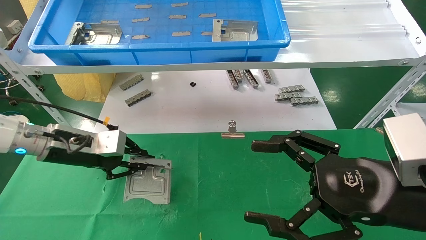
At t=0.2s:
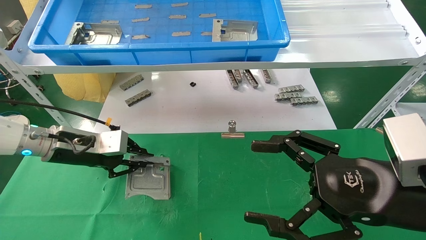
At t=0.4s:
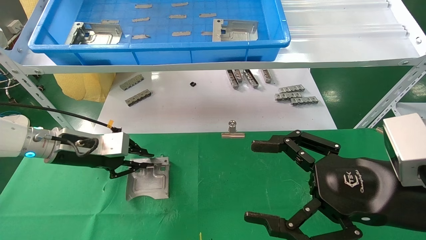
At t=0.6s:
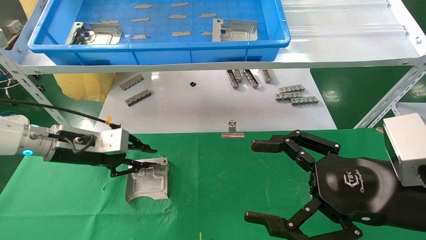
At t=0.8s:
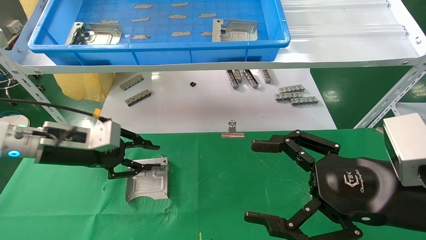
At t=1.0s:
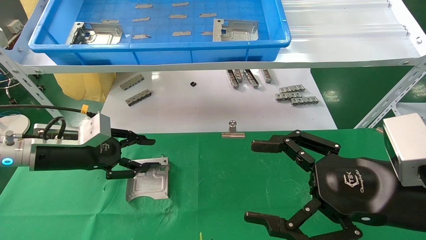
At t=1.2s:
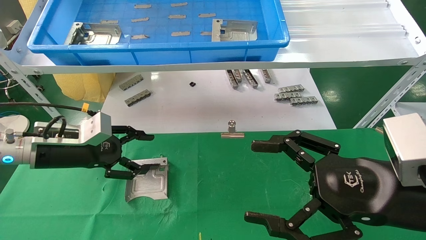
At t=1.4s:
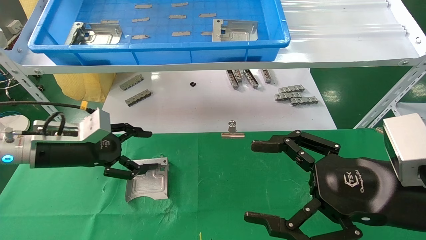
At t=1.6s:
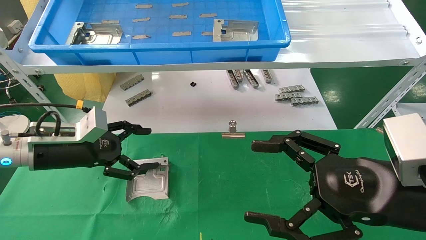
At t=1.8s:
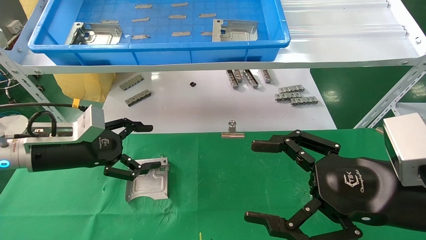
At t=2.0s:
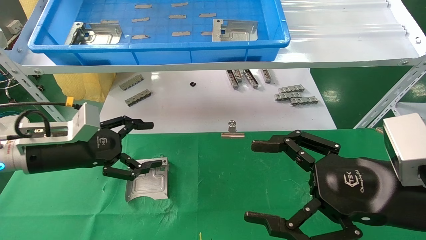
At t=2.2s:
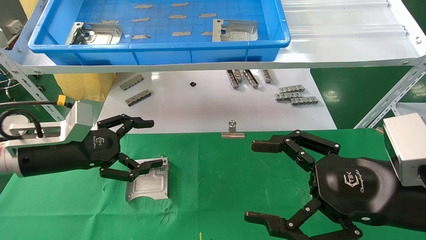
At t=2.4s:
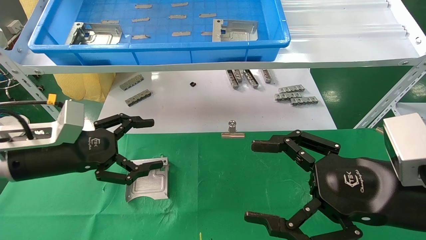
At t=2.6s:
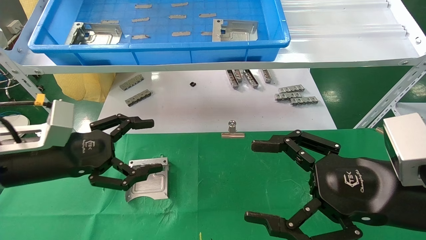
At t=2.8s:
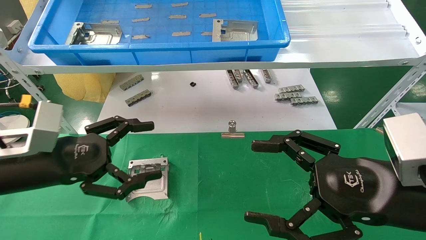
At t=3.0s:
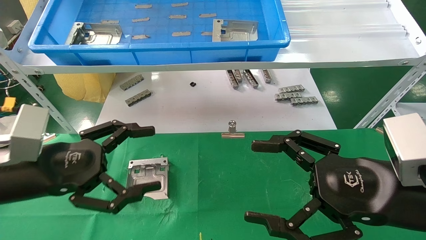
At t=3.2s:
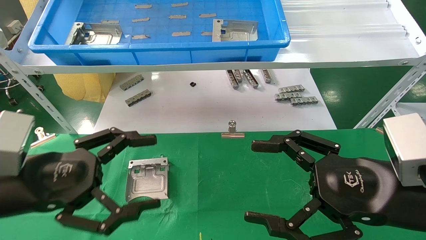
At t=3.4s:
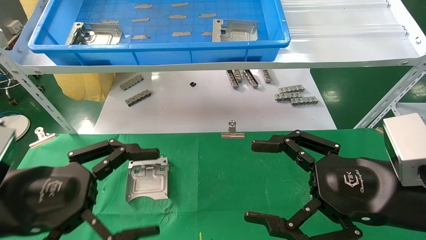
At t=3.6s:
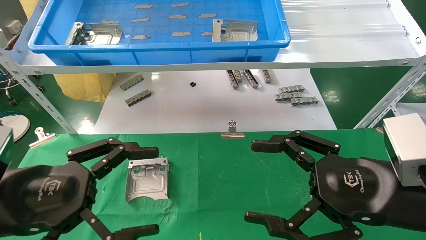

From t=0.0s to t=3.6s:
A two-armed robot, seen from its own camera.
Task of the whole recording: use the mechanical arm to pick up the parts and place them on the table.
From t=0.0s to t=1.8s: The left gripper opens up.
From t=1.8s to t=3.6s: The left gripper goes approximately 15 cm backward.
